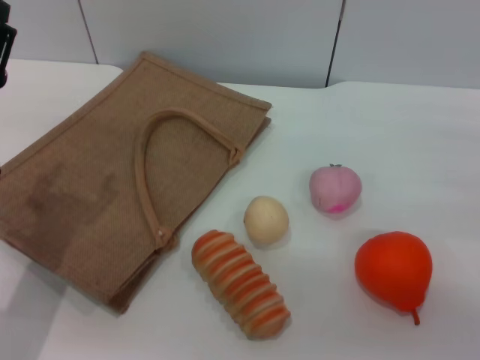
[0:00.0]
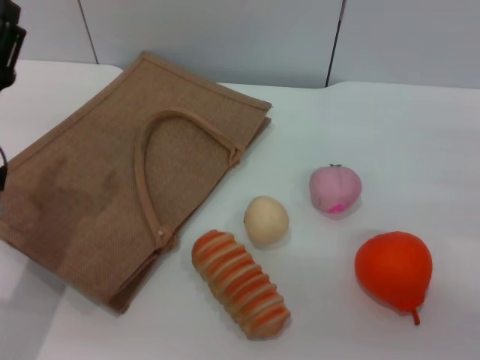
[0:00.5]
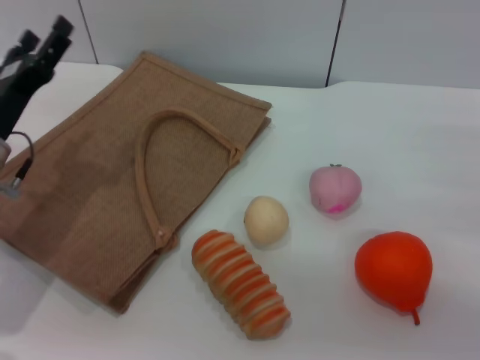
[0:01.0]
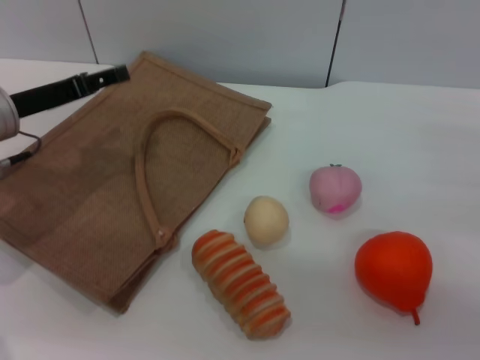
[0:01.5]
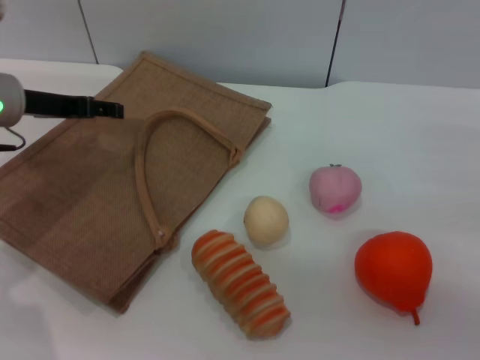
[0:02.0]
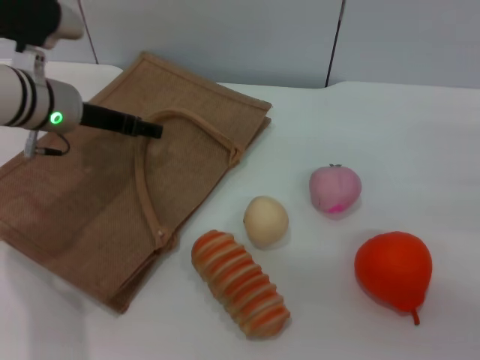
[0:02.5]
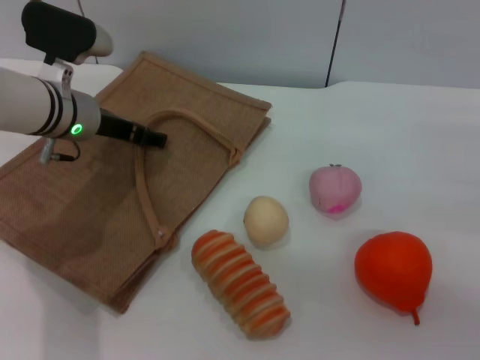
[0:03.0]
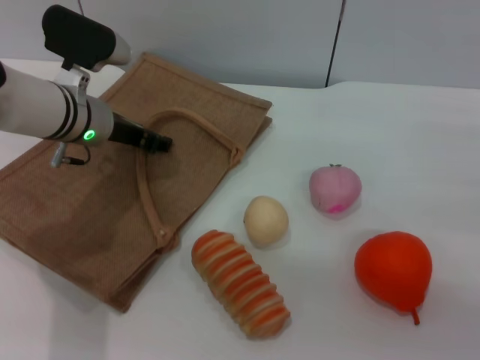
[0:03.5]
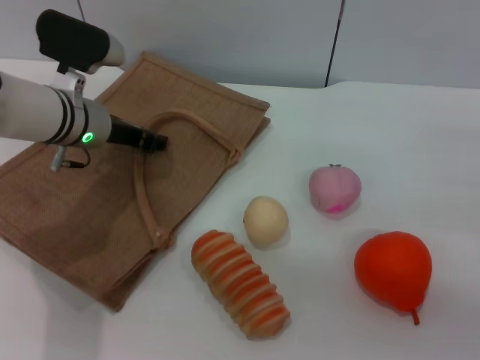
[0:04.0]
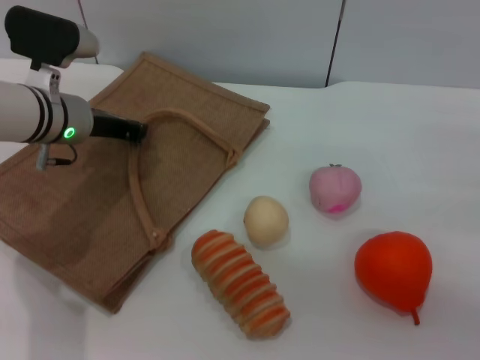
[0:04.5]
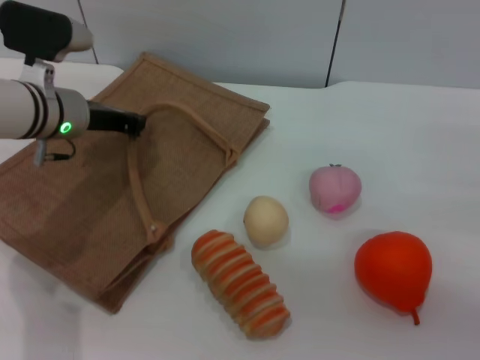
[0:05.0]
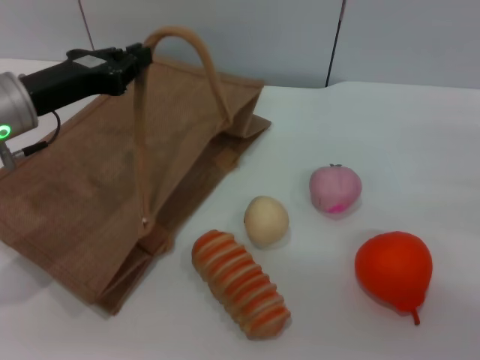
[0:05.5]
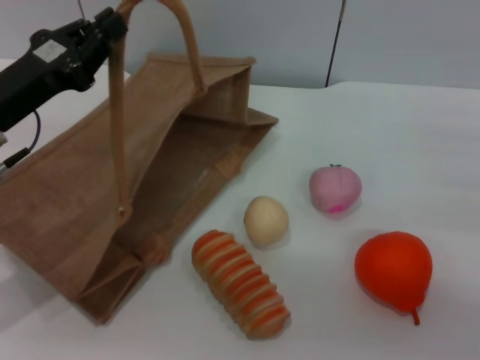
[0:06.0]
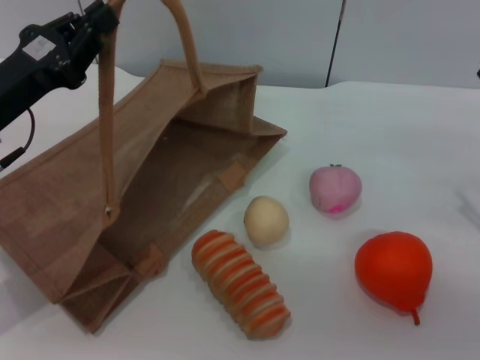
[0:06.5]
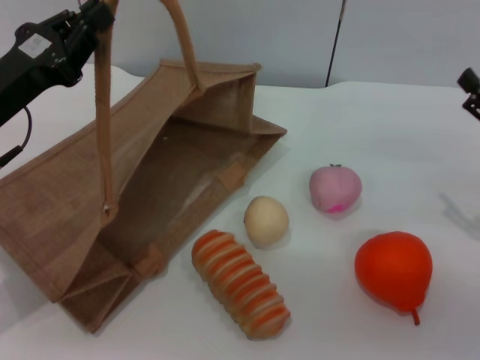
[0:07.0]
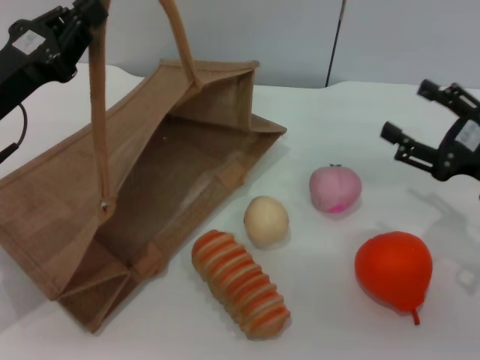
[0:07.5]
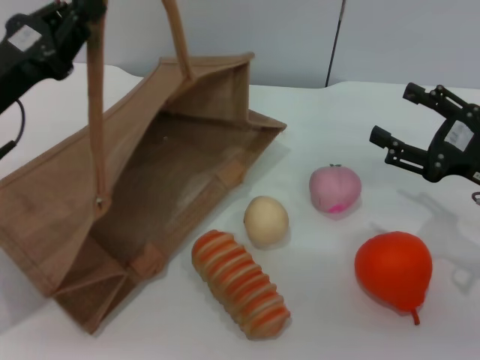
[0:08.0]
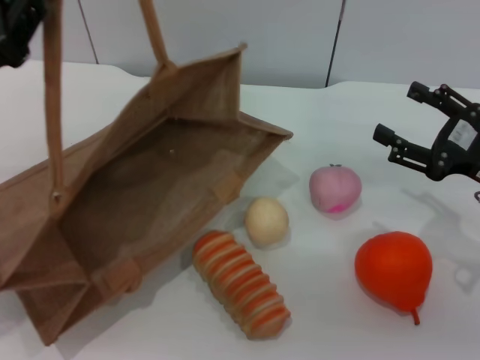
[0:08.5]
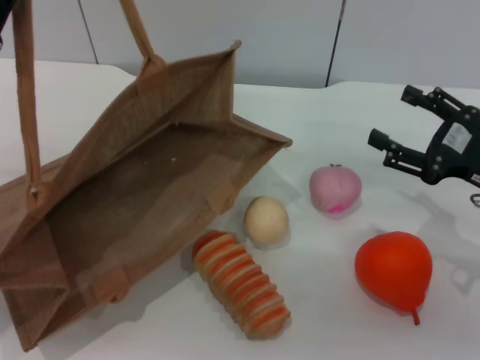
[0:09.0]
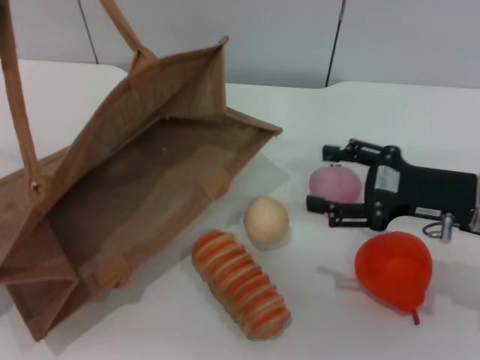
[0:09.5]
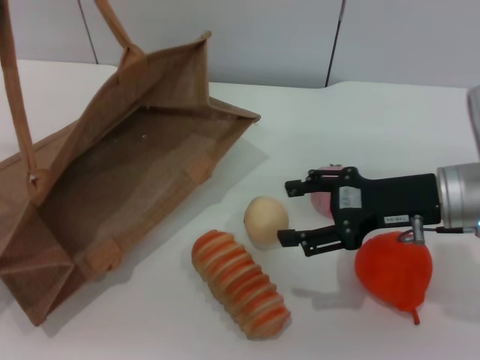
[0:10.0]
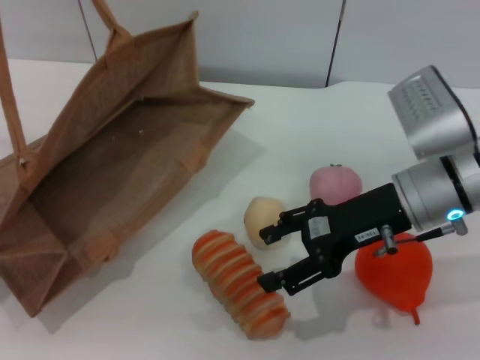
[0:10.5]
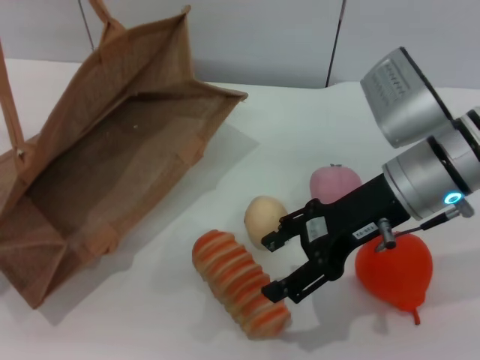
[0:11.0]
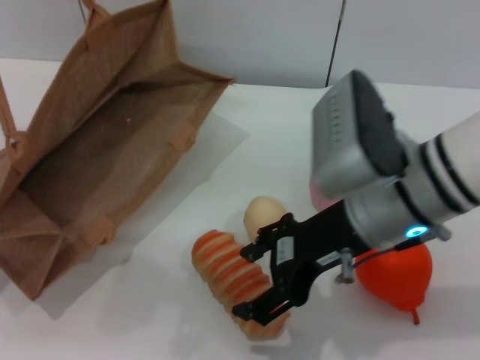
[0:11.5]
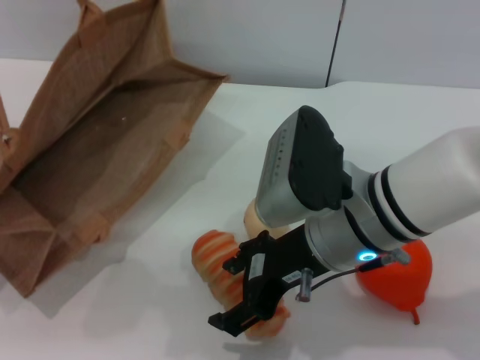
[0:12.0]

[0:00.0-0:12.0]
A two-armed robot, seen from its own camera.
Task of the whole recording: pick up the bread and egg yolk pastry from the table and place it in the brown handbag.
Step, 0:00.0 to 0:06.0: Lift the woven bag with the left gripper to open it.
0:00.0 to 0:02.0: The left gripper is displaced forward and upward by about 15 cm.
0:02.0 to 0:04.0: The left gripper is displaced to the right by about 10 cm, and closes.
0:04.0 to 0:06.0: The left gripper goes some 15 cm backward and to the left, and closes its fingers.
0:06.0 to 0:08.0: The right gripper shifts about 5 cm to the left.
0:08.0 to 0:10.0: The right gripper heads to the left, covering about 10 cm.
0:10.0 to 0:12.0: The right gripper is displaced to the left by approximately 15 cm.

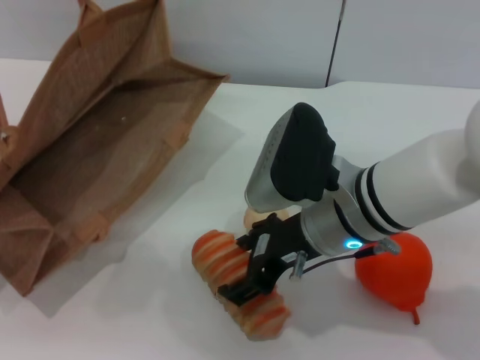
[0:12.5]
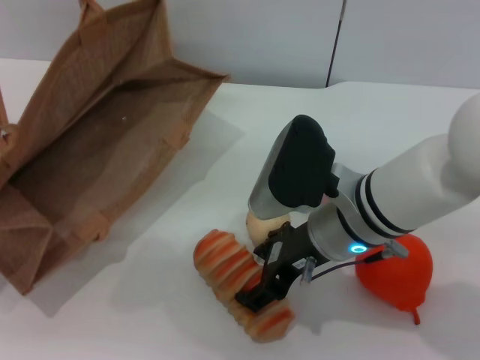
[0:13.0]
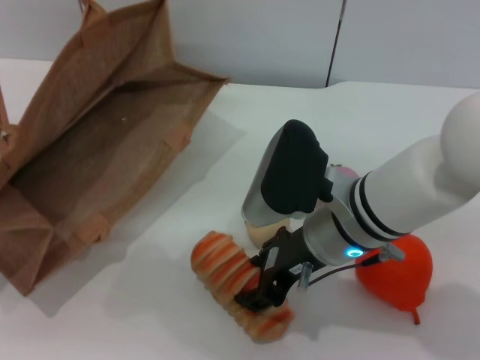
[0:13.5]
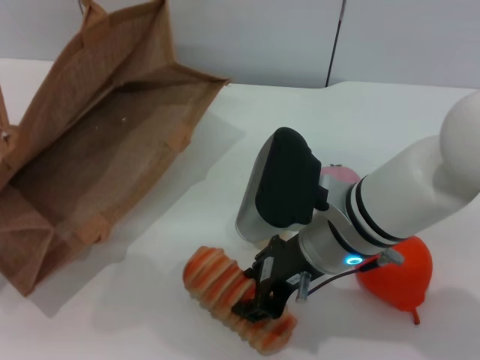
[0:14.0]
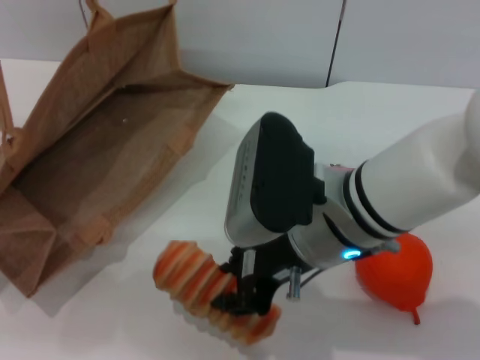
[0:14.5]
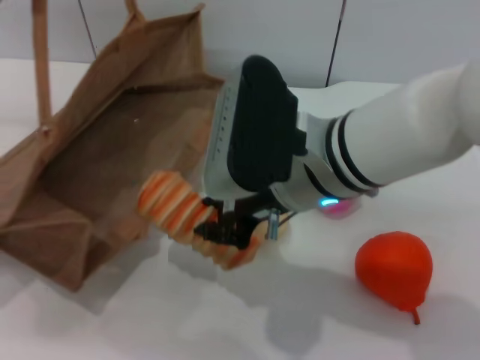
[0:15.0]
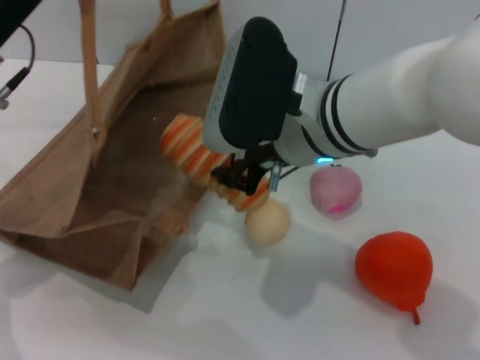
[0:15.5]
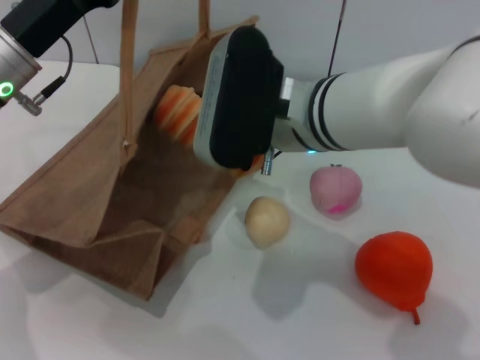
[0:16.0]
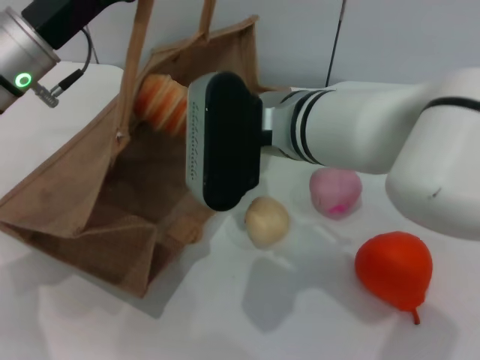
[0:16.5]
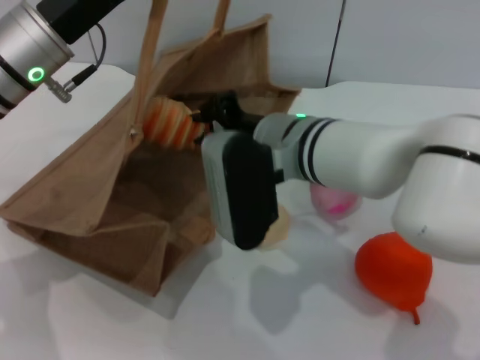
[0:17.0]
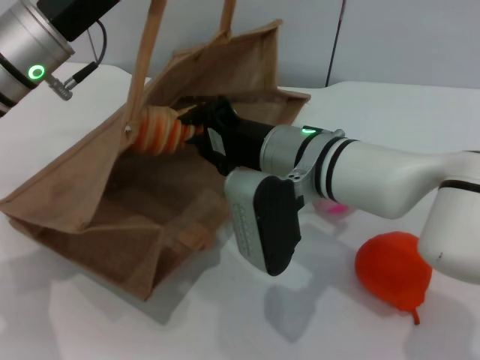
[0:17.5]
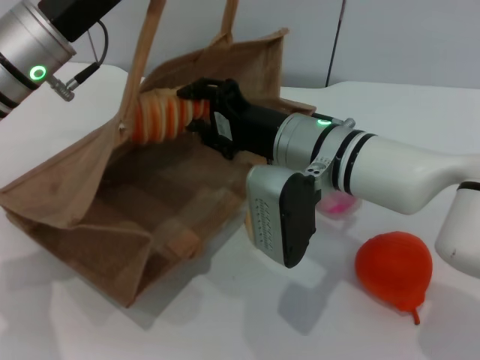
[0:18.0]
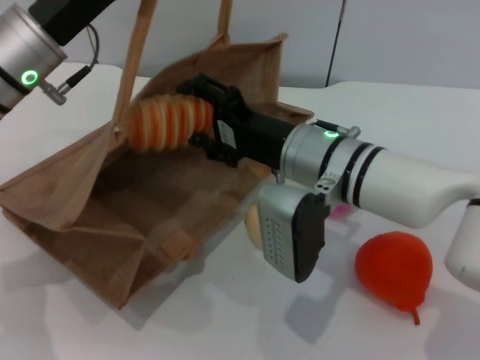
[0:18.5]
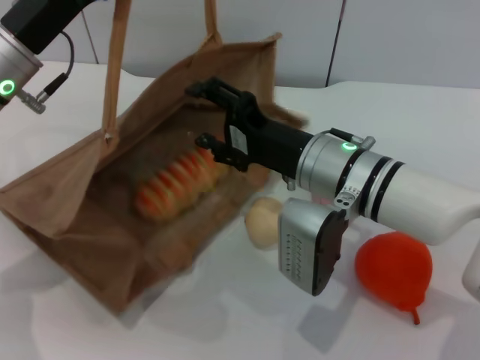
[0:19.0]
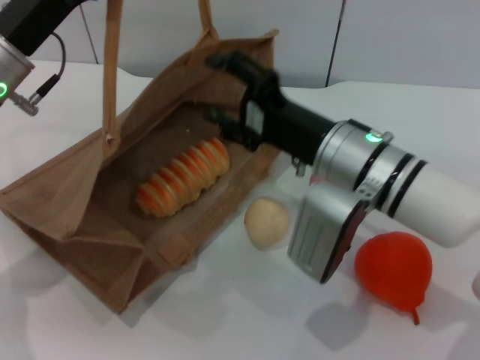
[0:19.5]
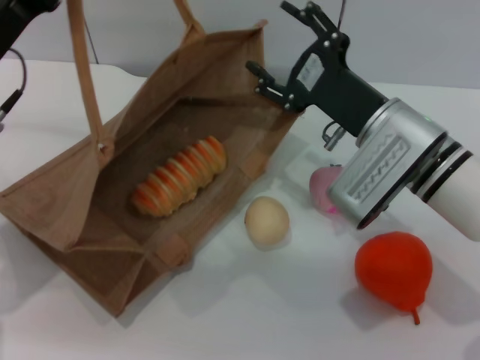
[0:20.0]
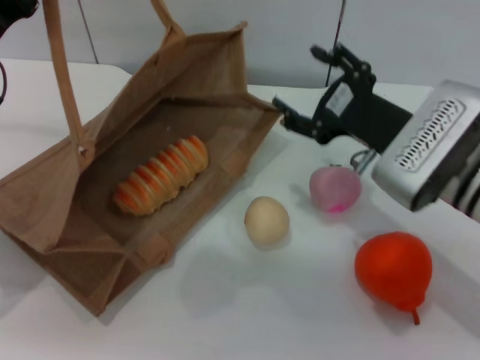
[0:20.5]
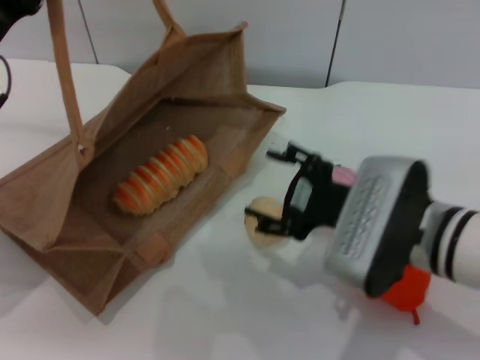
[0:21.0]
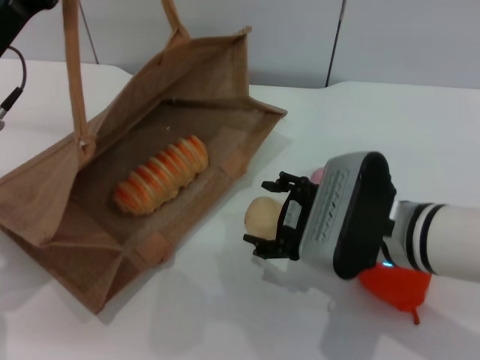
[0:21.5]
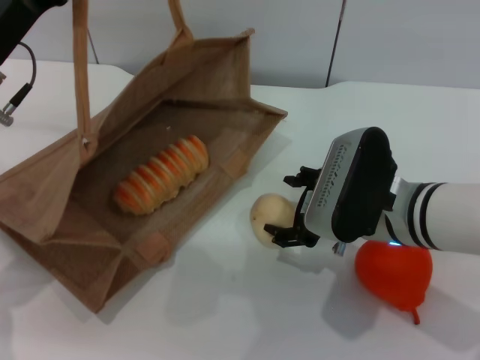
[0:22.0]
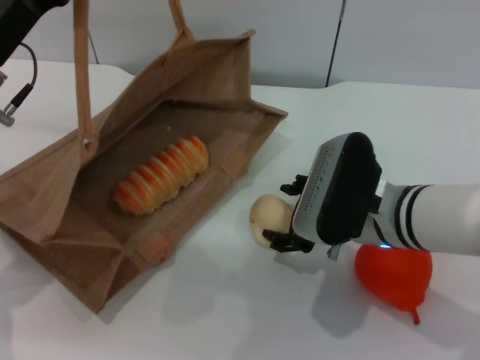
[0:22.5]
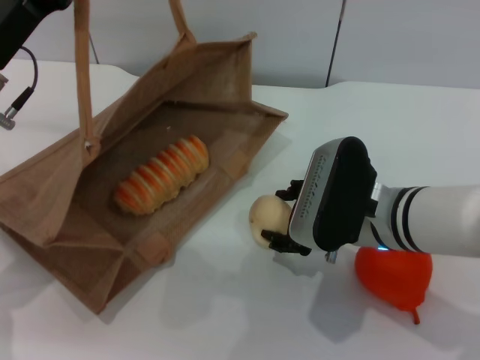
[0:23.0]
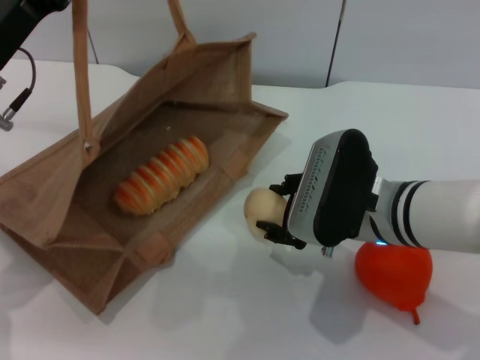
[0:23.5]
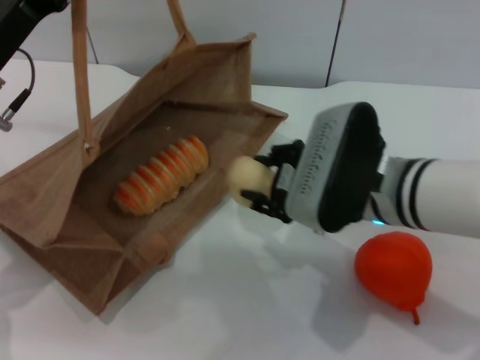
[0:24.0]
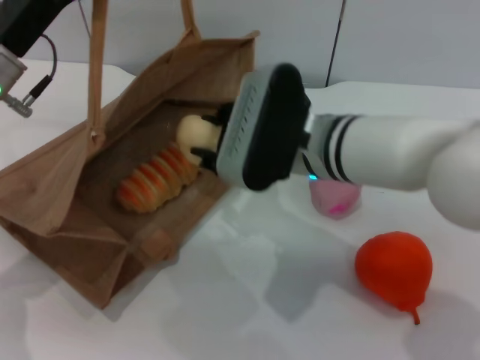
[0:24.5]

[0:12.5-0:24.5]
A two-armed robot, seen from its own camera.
Task of the whole recording: pick up the bread and egg yolk pastry from the table and place it in the brown handbag.
Step, 0:12.5 to 0:14.5: Pick up the bread with the right gripper.
Step, 0:15.0 to 0:19.0: Place the bread into the woven bag with the right gripper.
Step, 0:20.0 to 0:24.0: Pick up the egg yolk pastry with the right gripper.
0:12.5 to 0:14.5: The right gripper closes up.
0:14.5 to 0:16.5: The left gripper heads to the right, covering approximately 10 cm, while the right gripper travels forward by some 5 cm.
0:16.5 to 0:18.5: The right gripper heads downward, covering some 5 cm, and opens.
0:18.5 to 0:20.5: The right gripper travels to the right by some 10 cm, while the left gripper goes some 5 cm to the left.
0:20.5 to 0:22.5: The right gripper changes place by some 5 cm.
0:22.5 to 0:24.5: The right gripper moves to the left and upward, approximately 10 cm, and closes its fingers.

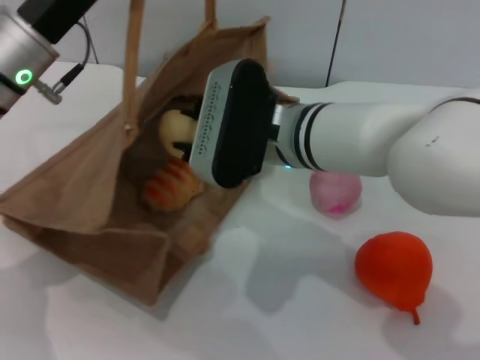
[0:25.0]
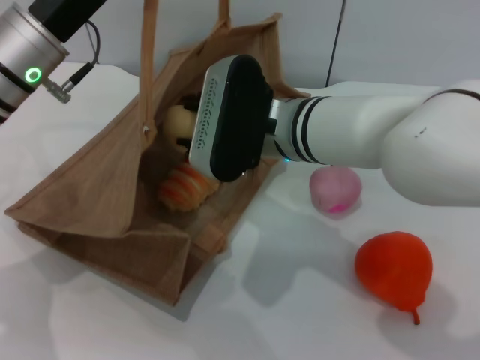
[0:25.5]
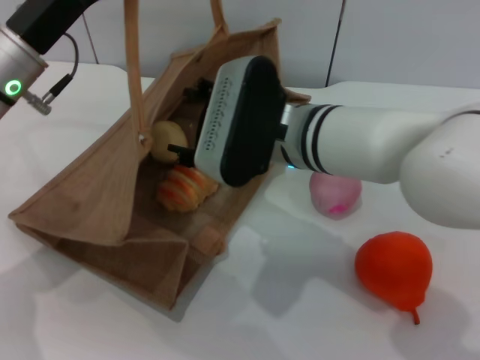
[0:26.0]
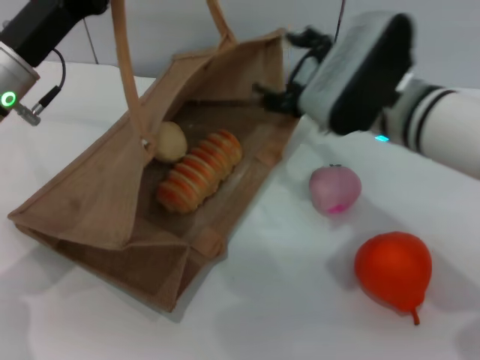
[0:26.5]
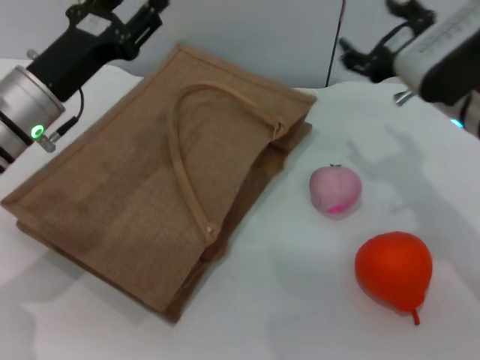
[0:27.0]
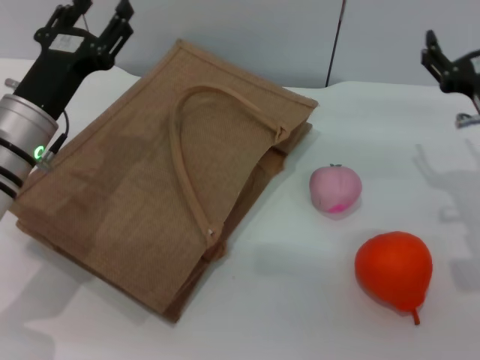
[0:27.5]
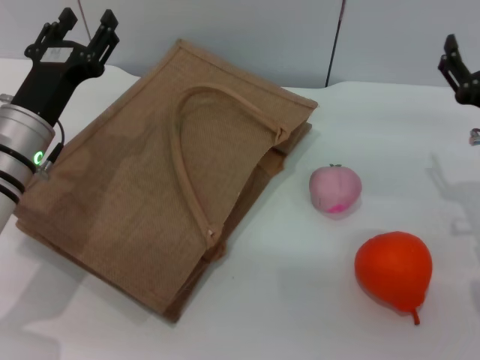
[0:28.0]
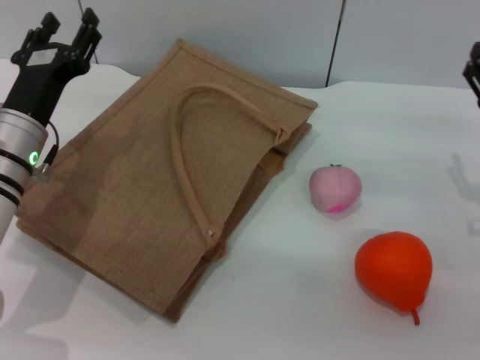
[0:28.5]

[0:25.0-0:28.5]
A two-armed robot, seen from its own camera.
Task of the whole recording: pick up the bread and egg yolk pastry from the table and place it in the brown handbag.
Step, 0:25.0 to 0:26.0: Place the egg yolk pastry into the woven bag with the right gripper.
0:25.0 to 0:27.0: The left gripper shifts by roughly 5 cm, and opens up. Meanwhile the right gripper travels to the right by approximately 15 cm, and opens.
0:27.0 to 0:28.5: The right gripper is displaced to the right, downward and backward by about 15 cm. Meanwhile the left gripper opens up.
